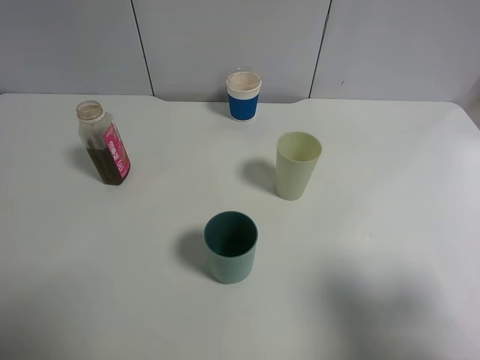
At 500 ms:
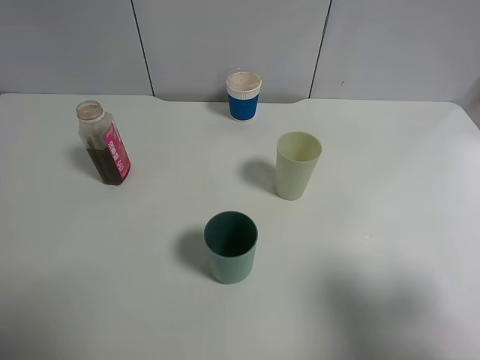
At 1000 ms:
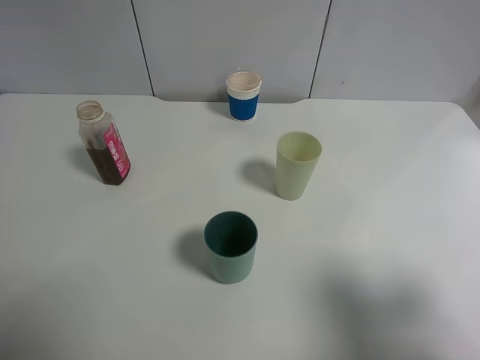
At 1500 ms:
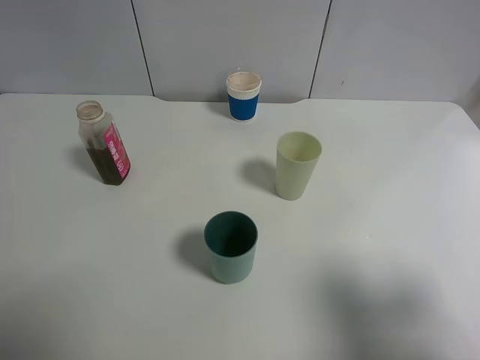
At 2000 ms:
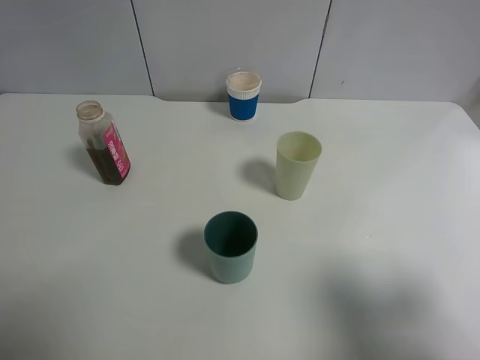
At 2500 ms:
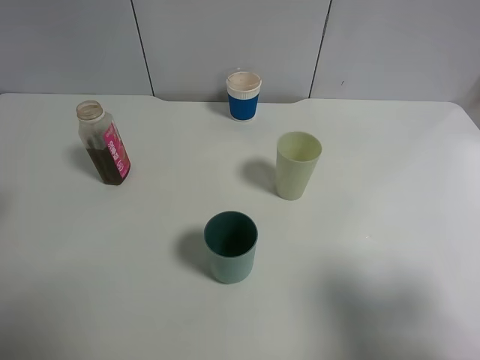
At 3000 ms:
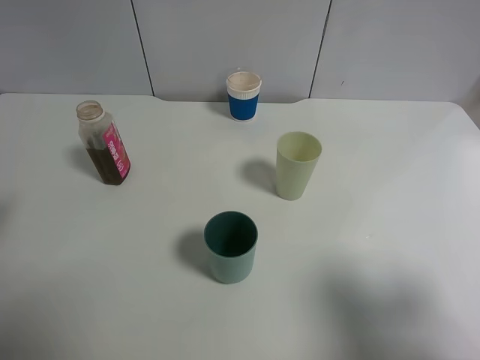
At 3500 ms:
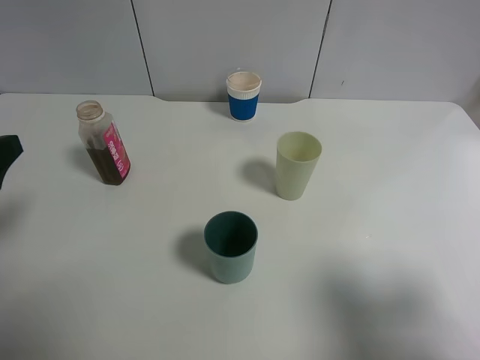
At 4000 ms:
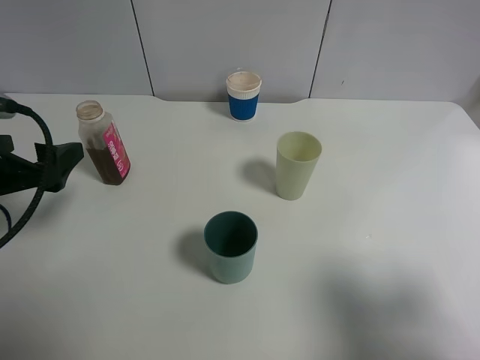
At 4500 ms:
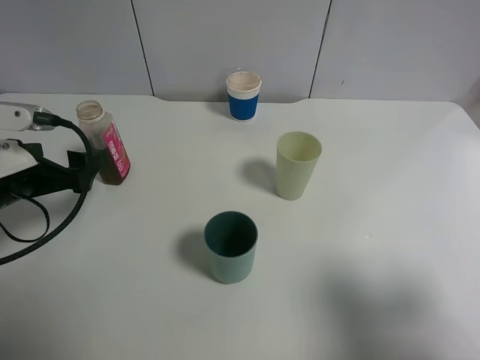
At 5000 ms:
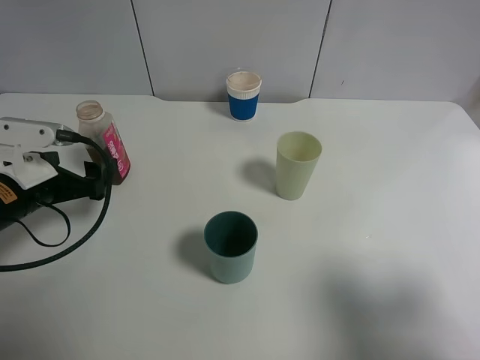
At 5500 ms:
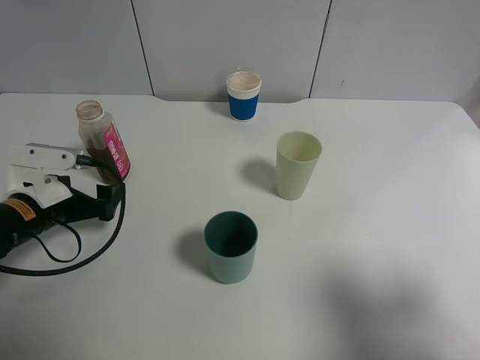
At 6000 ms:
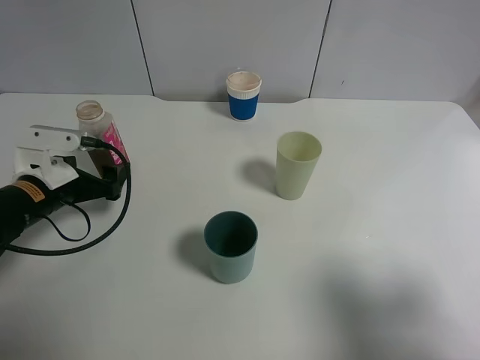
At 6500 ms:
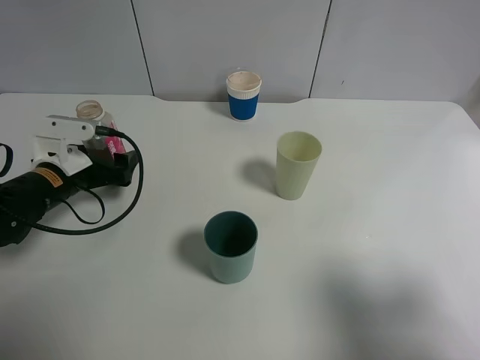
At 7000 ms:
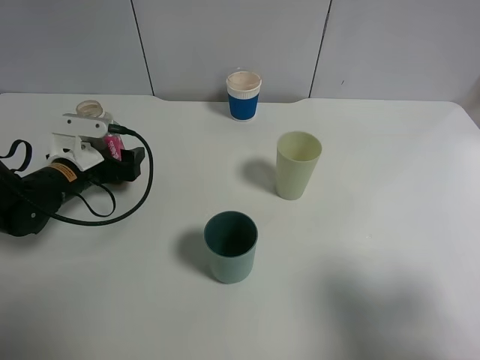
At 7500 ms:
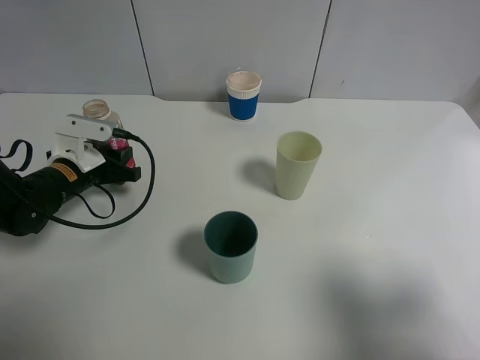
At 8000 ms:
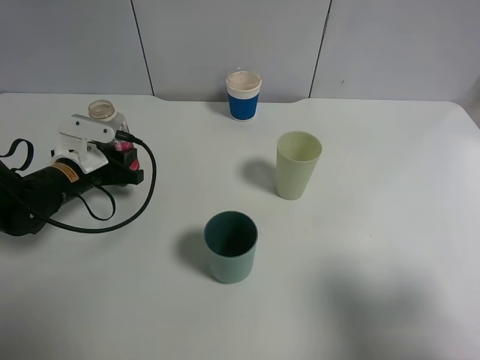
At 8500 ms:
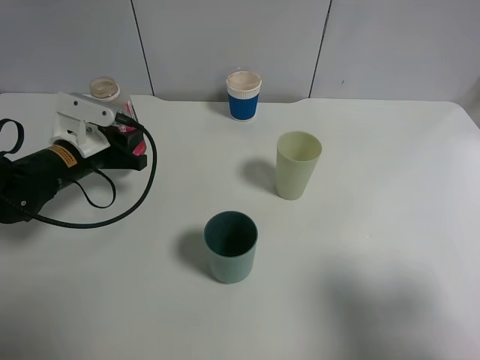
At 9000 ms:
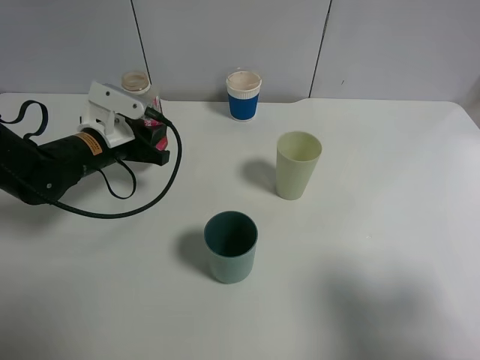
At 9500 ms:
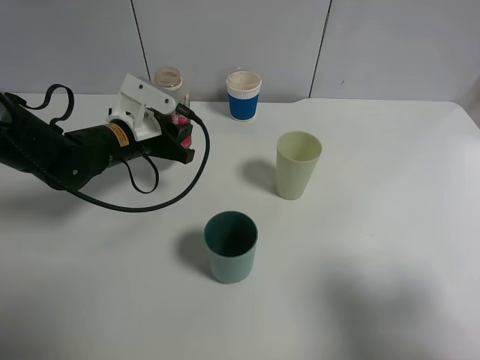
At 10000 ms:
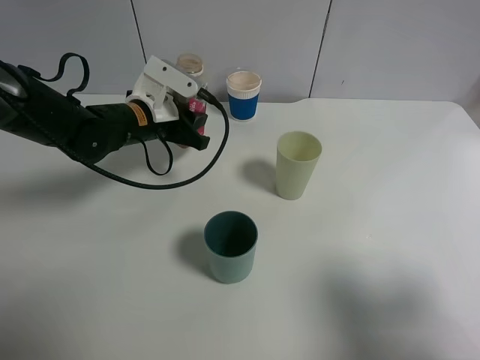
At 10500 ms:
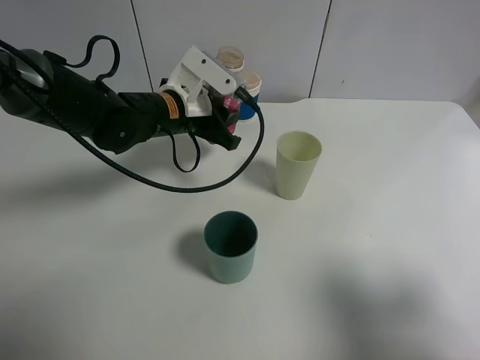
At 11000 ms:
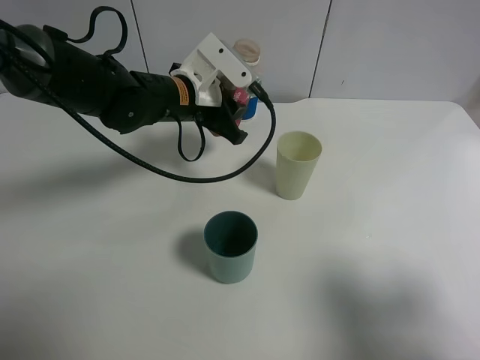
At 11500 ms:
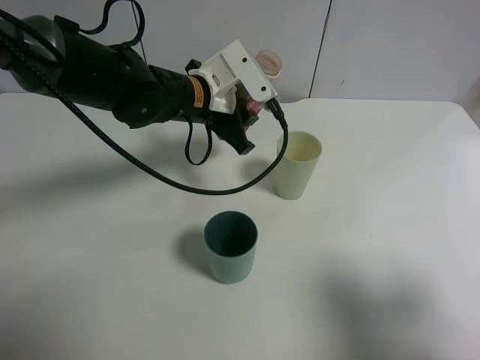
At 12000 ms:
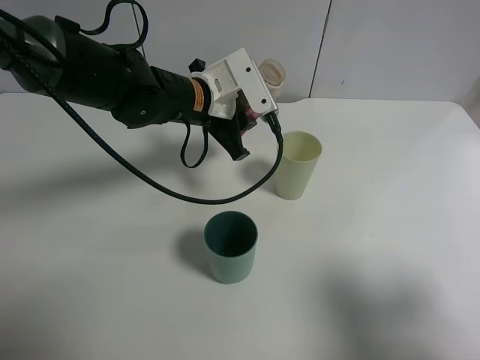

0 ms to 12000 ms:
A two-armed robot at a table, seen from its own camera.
Task of the whole recording: use a gripper to hold the bottle of the drink and pour it into a random cup.
Step, 0 ms to 7500 ms: Grasp the cranberry juice bottle with the left gripper.
2000 ms to 4000 ms: The left gripper shifts roughly 15 cm downward and forward.
4000 ms to 6000 ms: The left gripper is displaced downward and forward by about 10 cm.
6000 ms to 8000 ms: The left gripper shifts about 5 cm forward, and closes.
8000 ms to 10000 ms: The left gripper is displaced to the right, upward and forward by some 15 cm.
10000 ms to 12000 ms: The left gripper heads to the right, covering some 10 cm.

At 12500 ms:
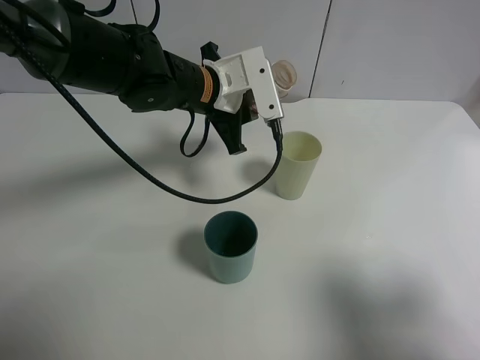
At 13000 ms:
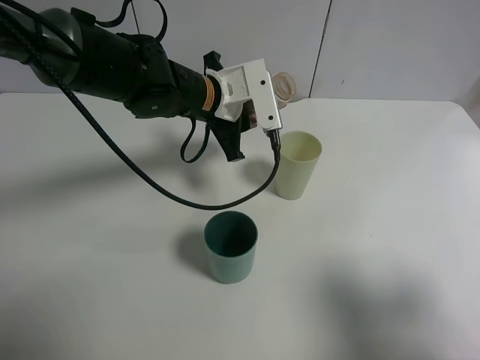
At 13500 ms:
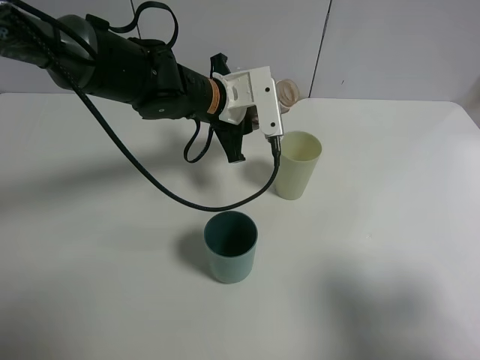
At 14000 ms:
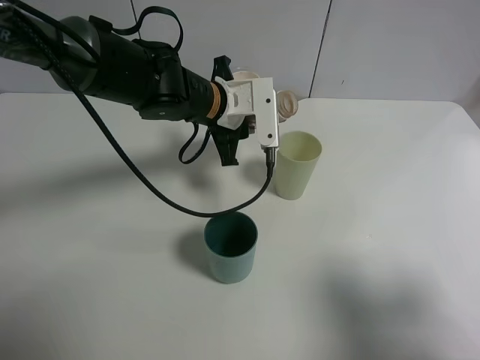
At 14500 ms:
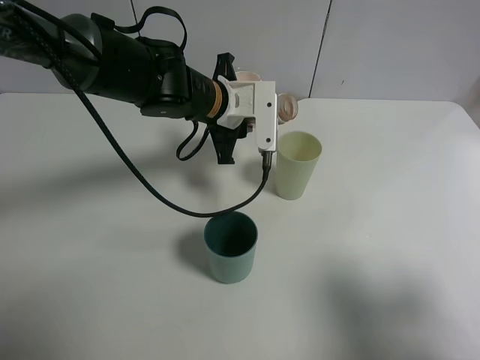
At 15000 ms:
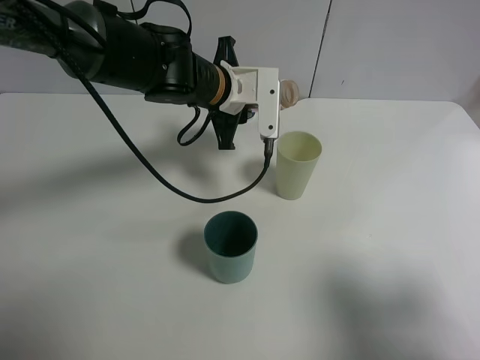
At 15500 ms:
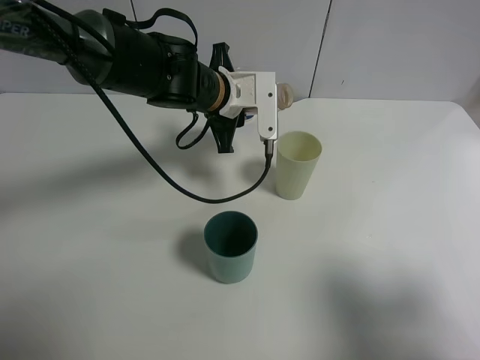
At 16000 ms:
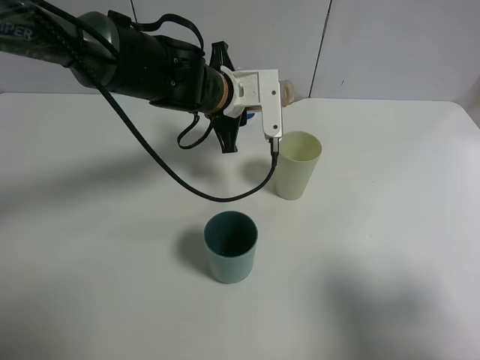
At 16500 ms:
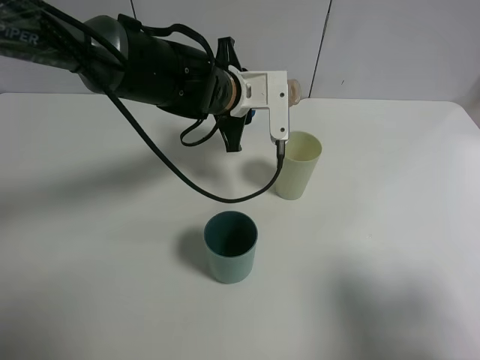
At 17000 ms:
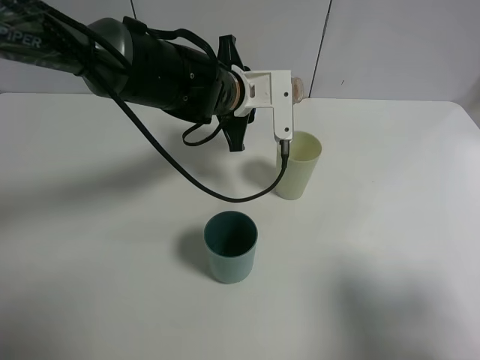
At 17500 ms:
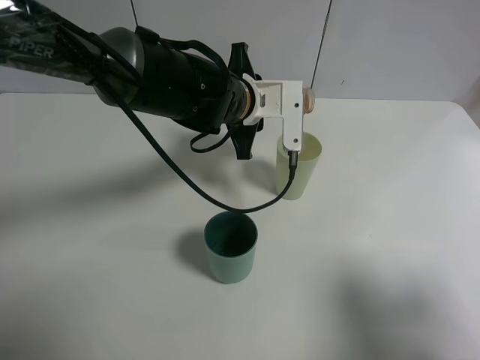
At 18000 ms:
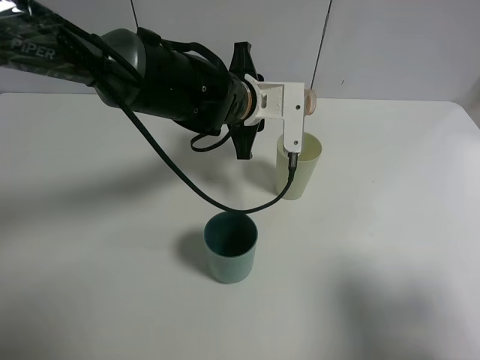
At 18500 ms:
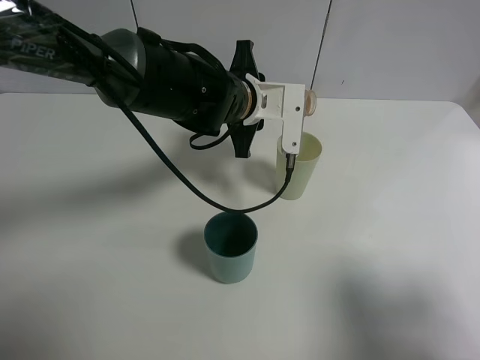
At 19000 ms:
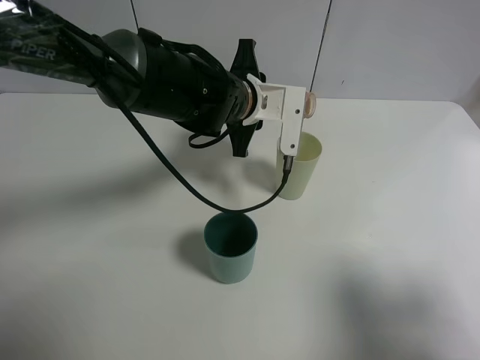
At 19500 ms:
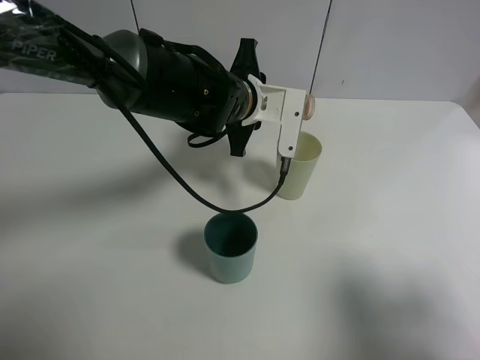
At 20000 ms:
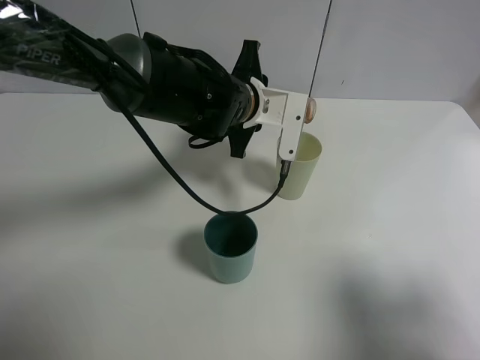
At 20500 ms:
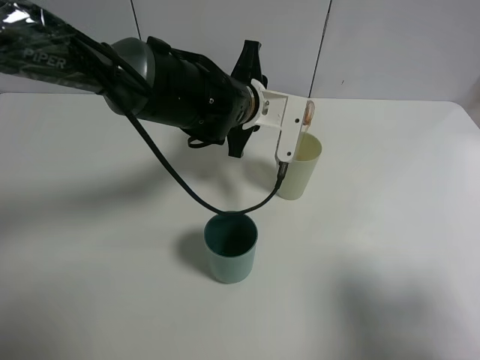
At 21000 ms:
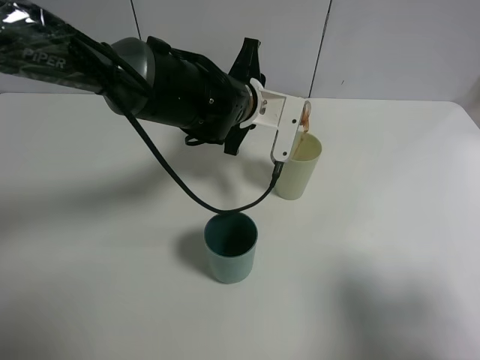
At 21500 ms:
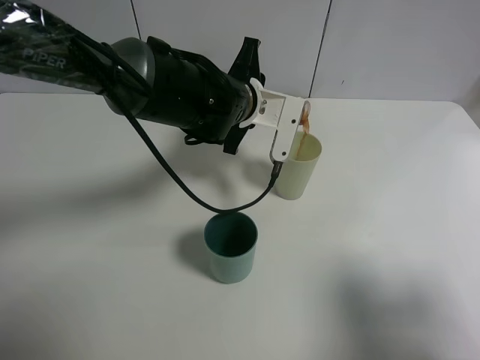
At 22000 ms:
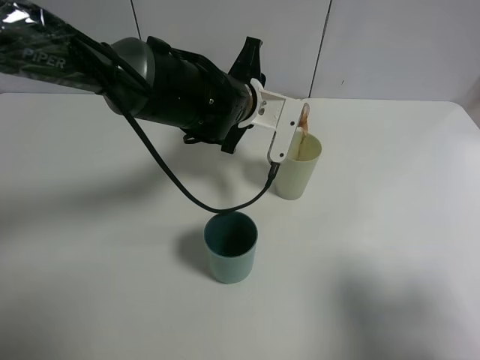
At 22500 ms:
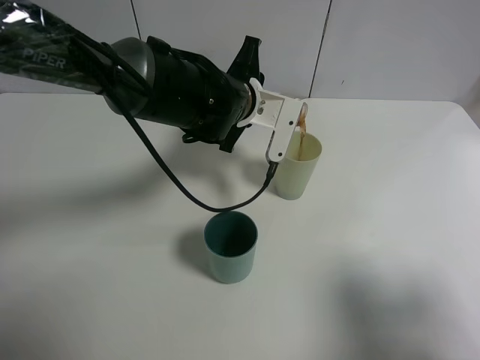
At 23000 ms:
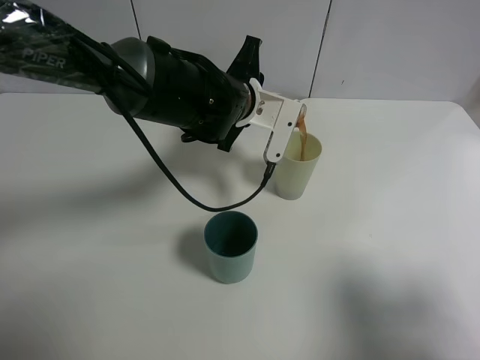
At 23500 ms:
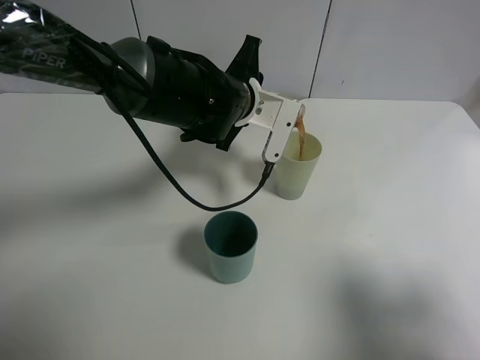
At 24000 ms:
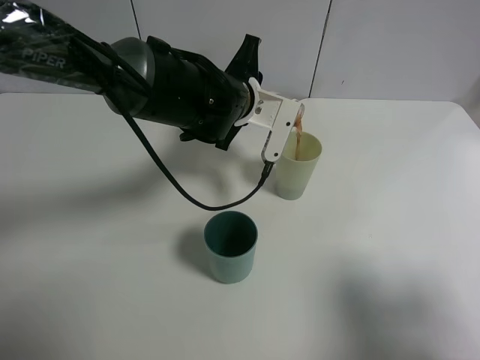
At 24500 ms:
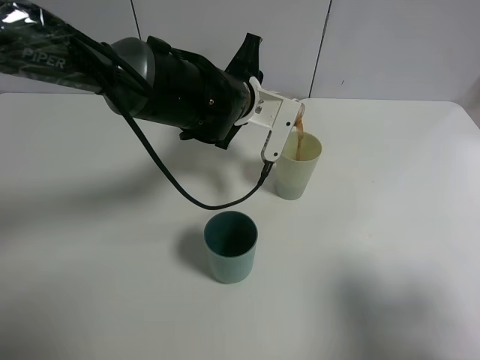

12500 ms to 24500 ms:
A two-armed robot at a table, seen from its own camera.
Task of the whole recording: use a gripper to hold the bottle of the drink and pour it into a random cup.
12500 ms to 14500 ms: The grippers make only small movements.
14500 ms to 18500 ms: The grippers move only a little.
18500 ms to 22500 ms: The grippers make only small movements.
22500 ms to 24500 ms: Both grippers stay about where they are.

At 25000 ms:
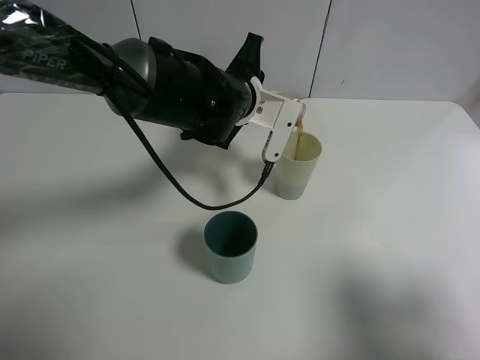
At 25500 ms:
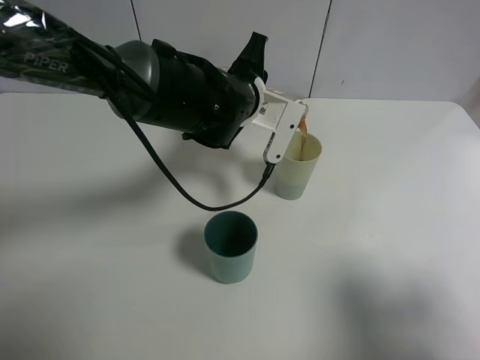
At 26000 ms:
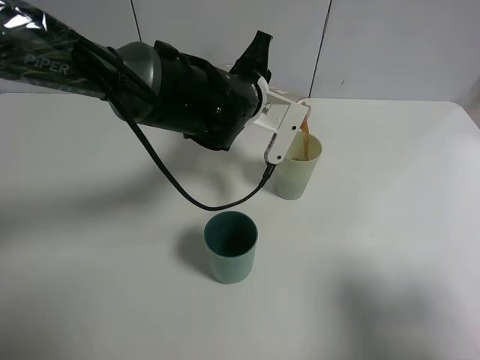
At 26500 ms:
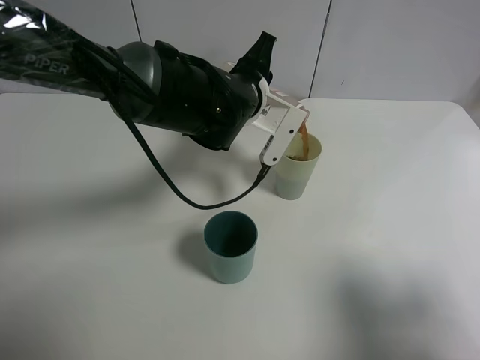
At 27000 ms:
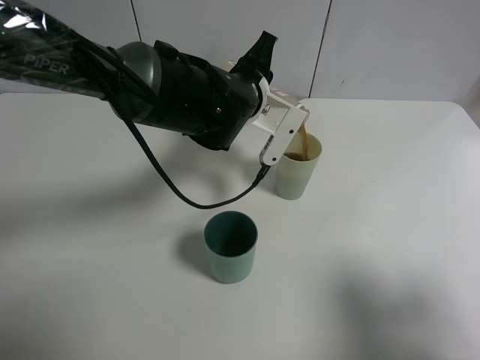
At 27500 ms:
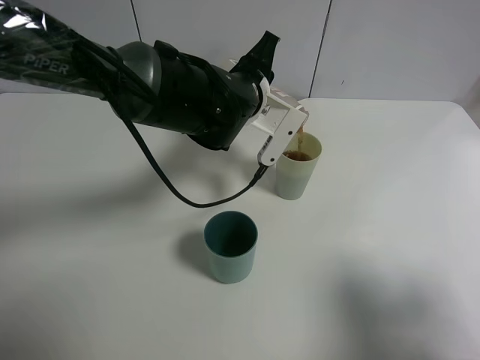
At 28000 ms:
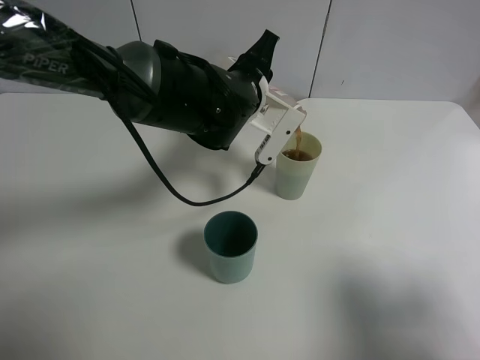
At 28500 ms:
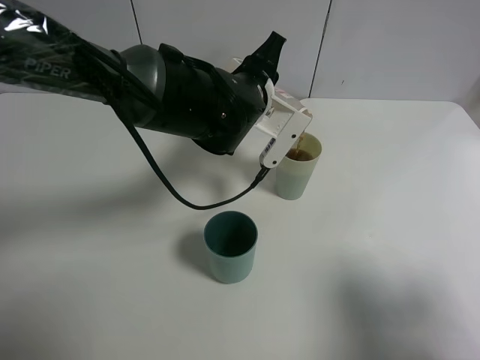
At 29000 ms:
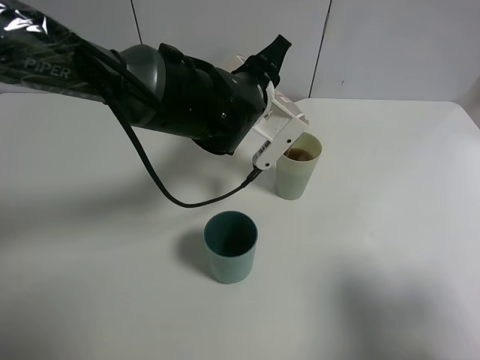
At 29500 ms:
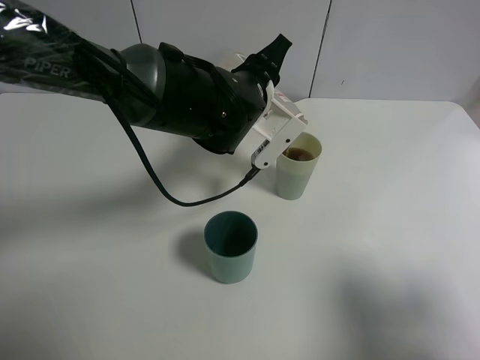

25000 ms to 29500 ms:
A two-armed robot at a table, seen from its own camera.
Task of the whole recording: use a gripper to hold the bottle of the drink and pour it into a random cup.
25000 ms to 27000 ms: The grippers make only small movements.
27000 ms to 29500 ms: The grippers make only small movements.
